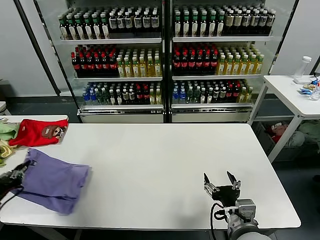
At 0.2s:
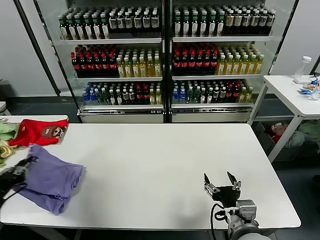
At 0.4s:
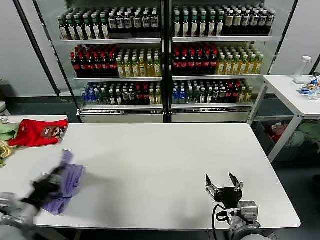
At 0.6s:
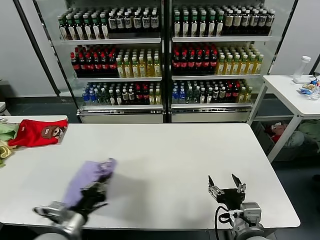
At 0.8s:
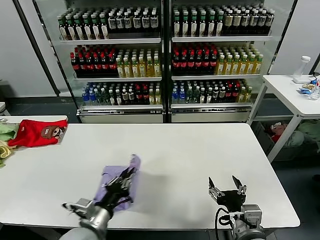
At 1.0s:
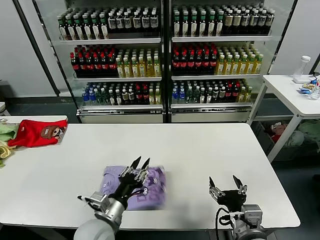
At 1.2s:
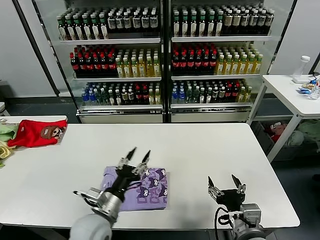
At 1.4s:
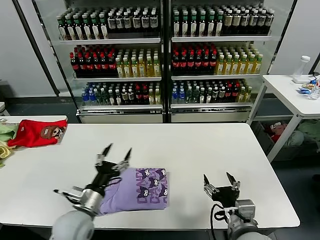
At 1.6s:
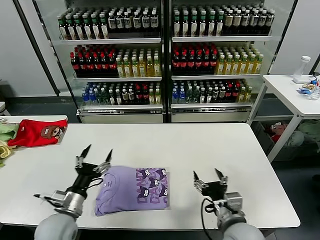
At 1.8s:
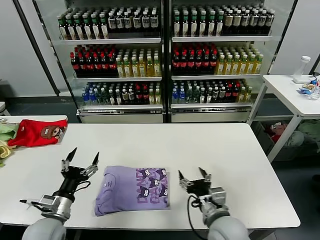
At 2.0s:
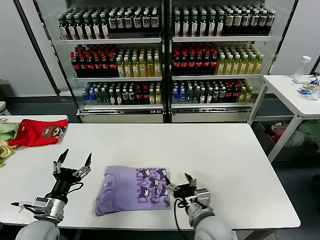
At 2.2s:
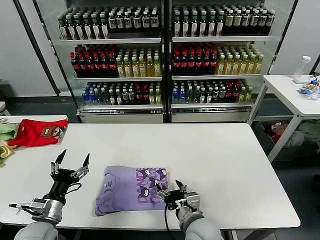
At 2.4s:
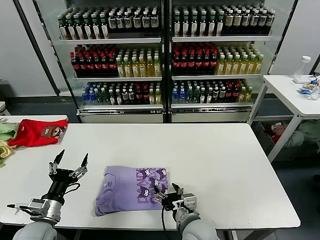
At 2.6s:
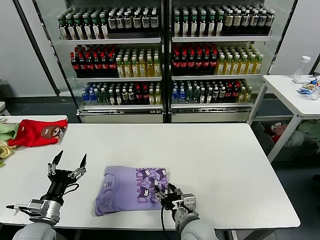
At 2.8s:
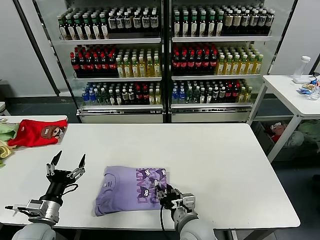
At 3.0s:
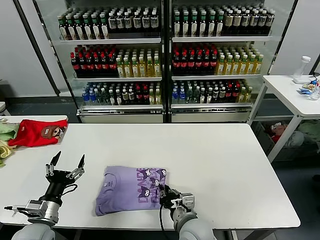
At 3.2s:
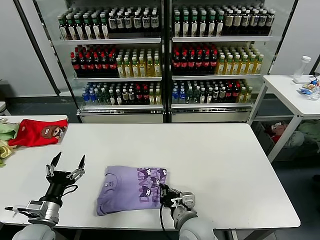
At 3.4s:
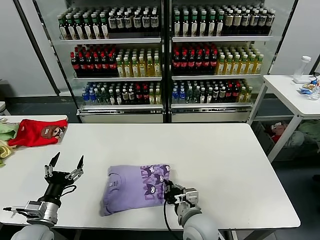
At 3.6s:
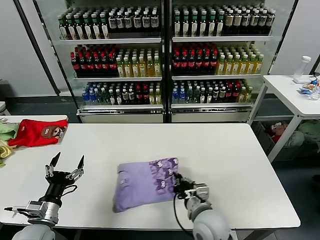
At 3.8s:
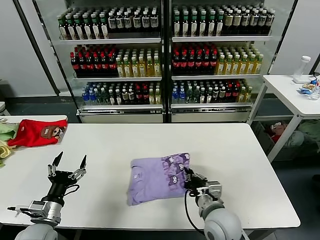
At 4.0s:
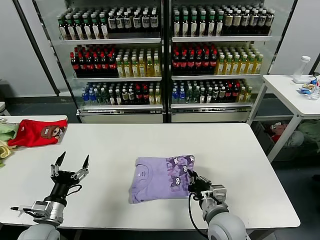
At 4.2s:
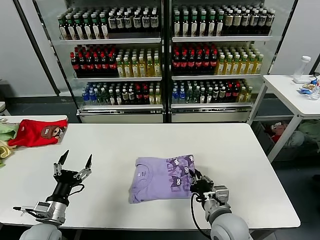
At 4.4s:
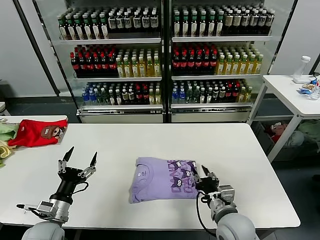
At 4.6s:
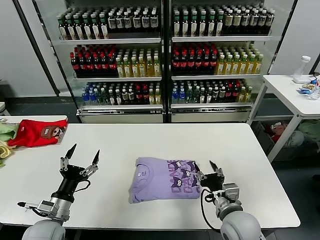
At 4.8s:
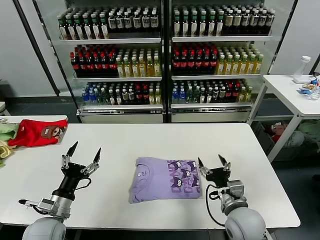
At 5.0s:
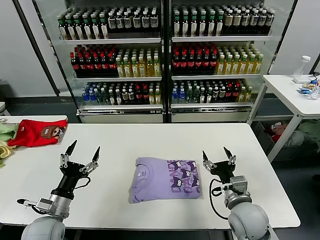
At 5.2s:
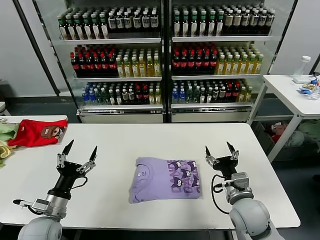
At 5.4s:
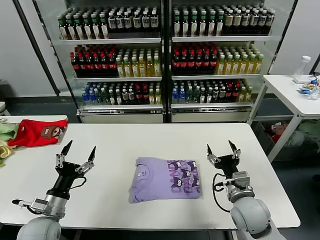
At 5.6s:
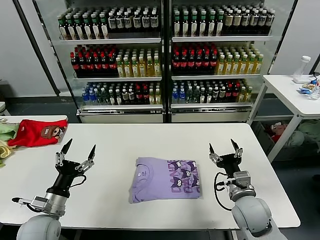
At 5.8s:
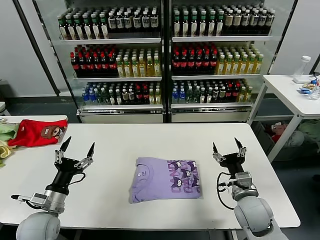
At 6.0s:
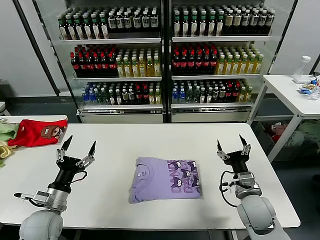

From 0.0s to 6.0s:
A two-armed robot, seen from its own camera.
Task of the whole recording: fold and organize the clothes.
Step, from 1.2s to 4.2s: Drag the clothes to the center of the table.
From 0.0s to 1.6s: The left gripper travels to the right and downward by approximately 20 cm, and opens.
From 1.6s to 3.0s: The left gripper heads to the left, covering about 5 cm. The right gripper shifts about 10 cm to the left and downward, and closes.
From 3.0s to 4.4s: The right gripper is displaced to the right by some 10 cm.
From 4.4s to 6.0s: The right gripper moves to the right and forward, approximately 10 cm, and opens up.

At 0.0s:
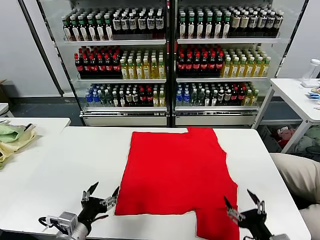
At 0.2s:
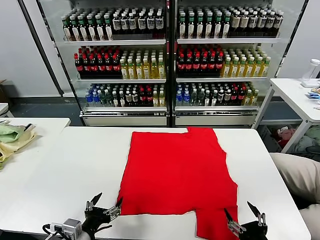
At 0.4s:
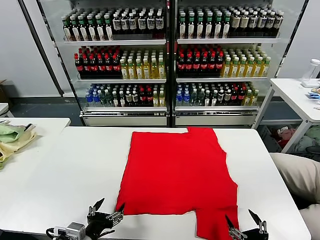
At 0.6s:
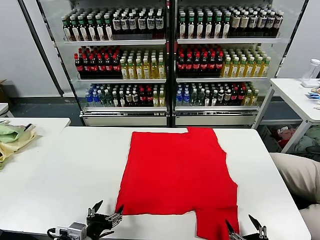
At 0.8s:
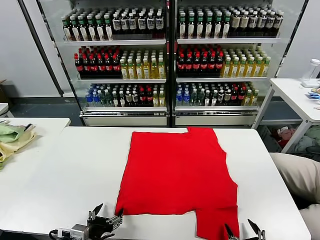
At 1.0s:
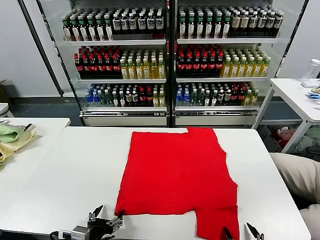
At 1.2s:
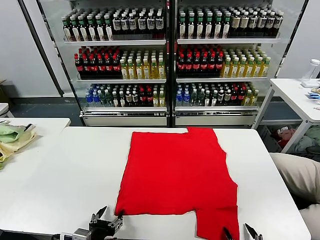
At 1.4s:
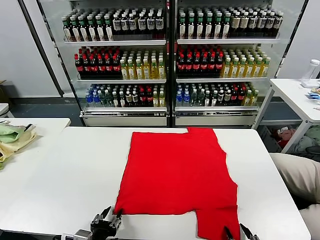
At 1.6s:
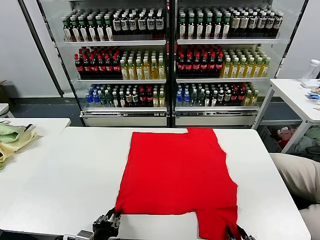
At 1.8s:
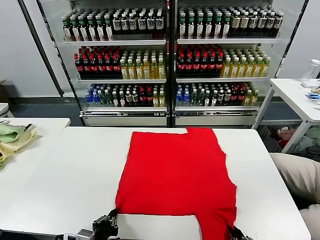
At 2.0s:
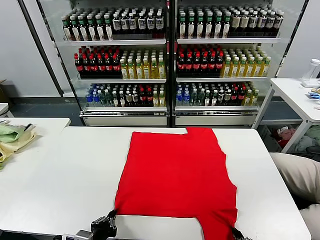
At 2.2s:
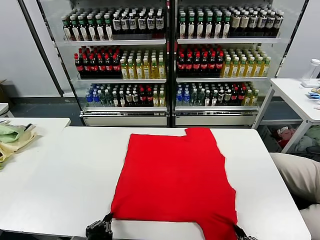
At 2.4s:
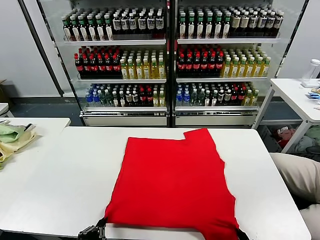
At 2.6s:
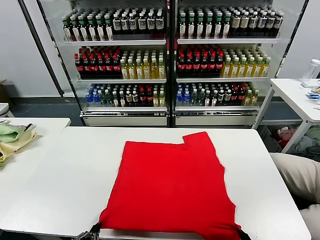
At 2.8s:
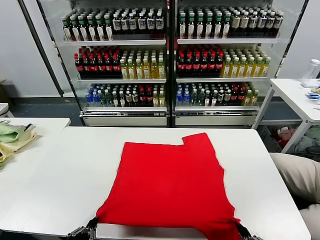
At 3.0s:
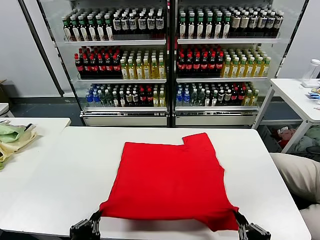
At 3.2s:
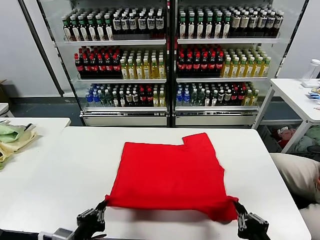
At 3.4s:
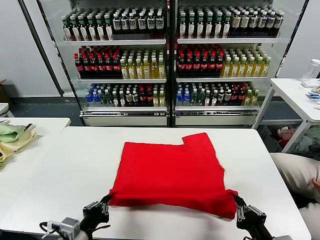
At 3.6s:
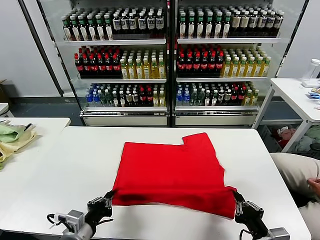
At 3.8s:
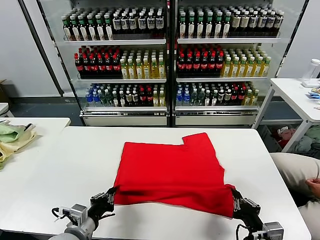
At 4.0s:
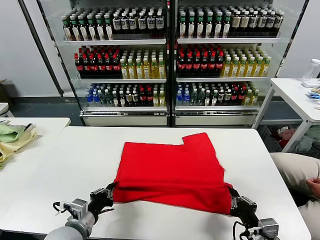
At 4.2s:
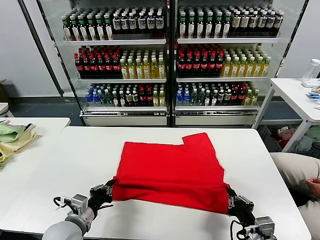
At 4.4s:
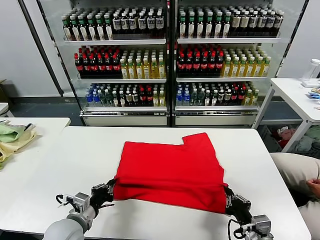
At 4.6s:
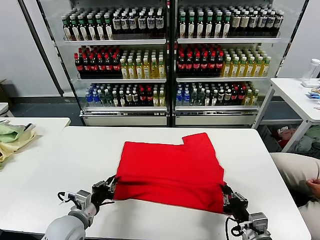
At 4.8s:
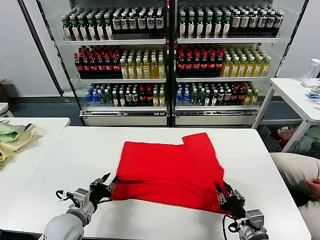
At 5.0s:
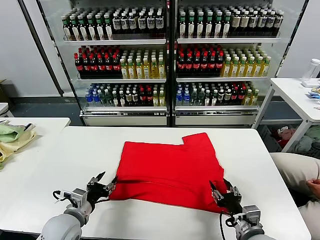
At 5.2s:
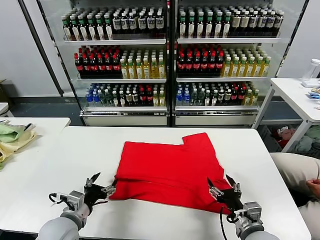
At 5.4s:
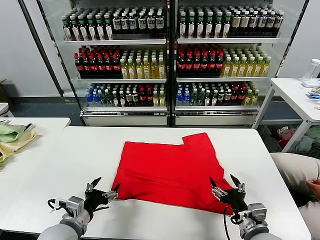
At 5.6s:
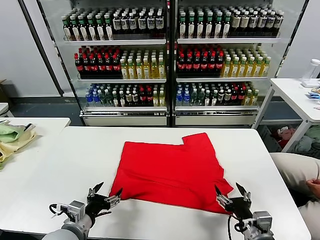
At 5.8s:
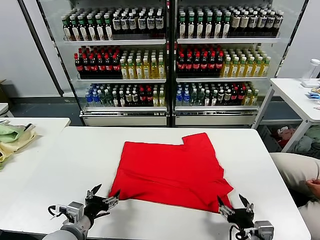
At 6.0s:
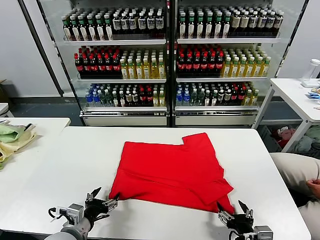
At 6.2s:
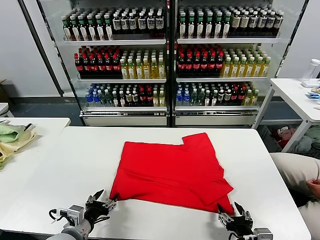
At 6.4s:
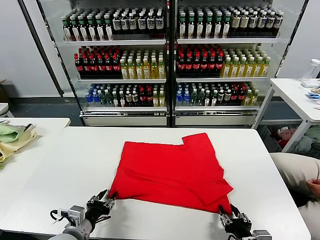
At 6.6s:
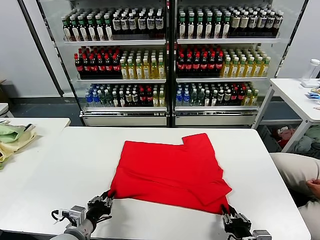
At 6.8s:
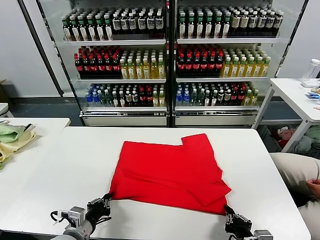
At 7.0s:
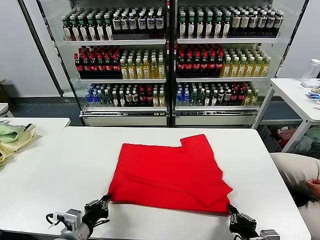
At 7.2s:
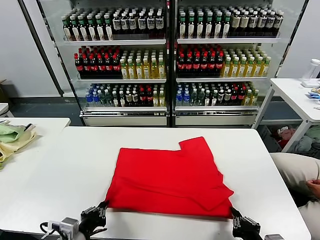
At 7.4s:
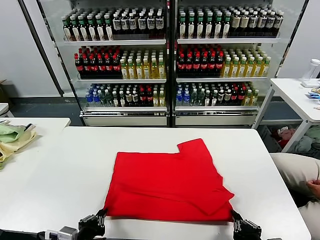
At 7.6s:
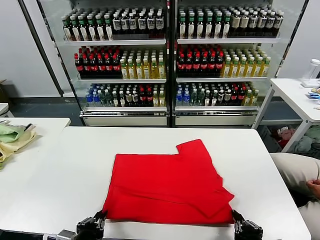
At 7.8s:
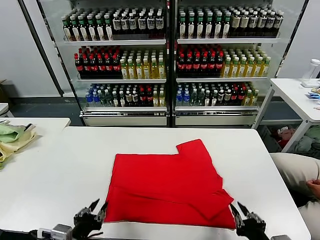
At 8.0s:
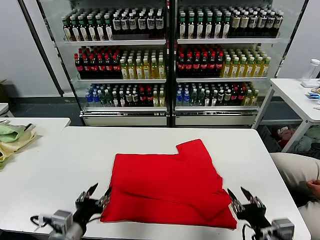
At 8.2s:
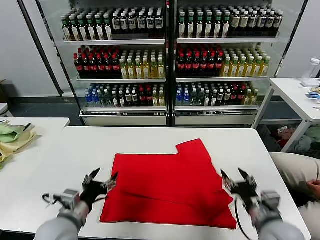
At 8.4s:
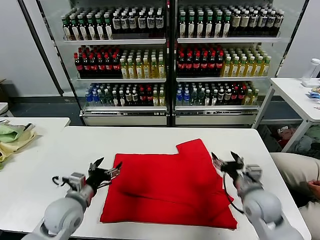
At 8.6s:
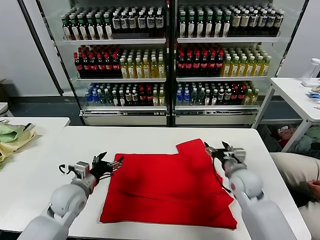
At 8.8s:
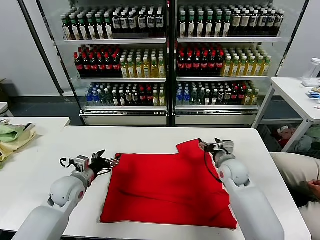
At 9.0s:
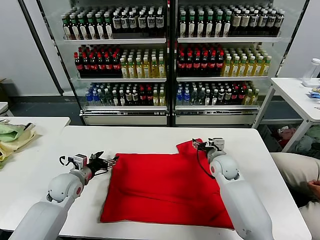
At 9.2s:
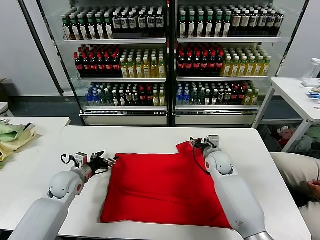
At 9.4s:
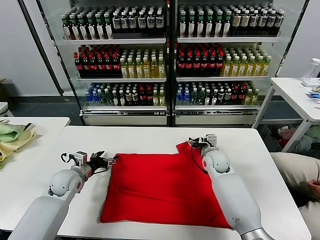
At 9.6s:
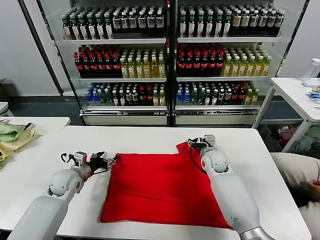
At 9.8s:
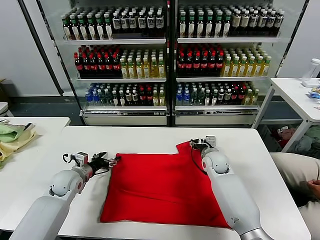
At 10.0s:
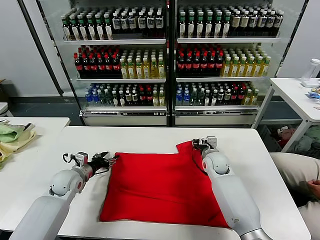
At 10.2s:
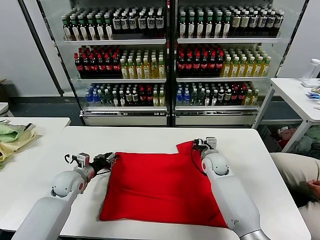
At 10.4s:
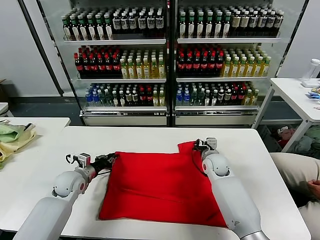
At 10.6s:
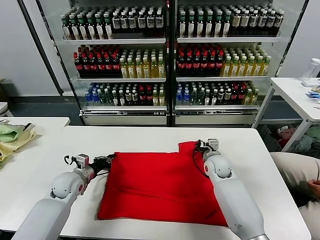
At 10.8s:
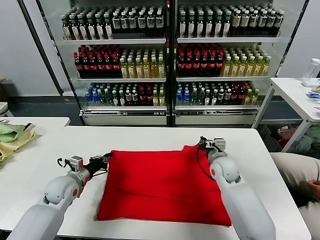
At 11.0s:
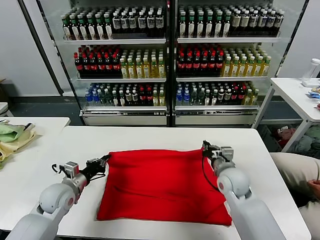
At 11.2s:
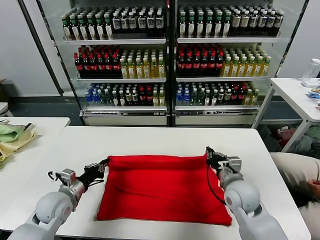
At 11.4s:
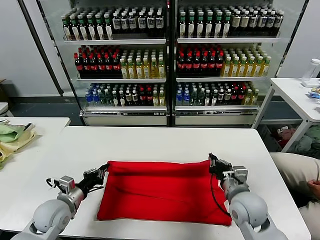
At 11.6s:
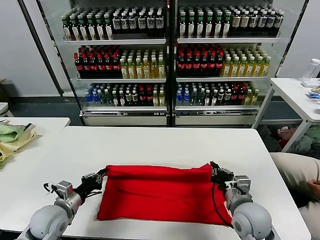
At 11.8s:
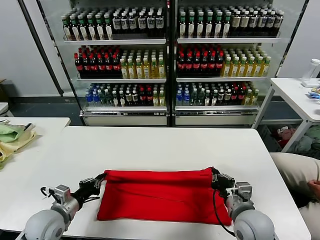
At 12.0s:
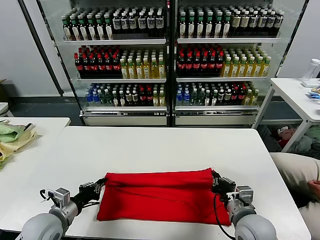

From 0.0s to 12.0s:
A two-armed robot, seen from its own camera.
Task of the whole recording: fold and organize the clothes.
Step, from 0.0s to 1.6s: use both grippers simultaneously to clamp the lower edge of the clothing fabric.
Step, from 1.8s to 4.6s: use both grippers to drag the lower edge of the fabric forward and fold it over the upper edge.
Step, from 5.0s to 7.6s: Drag the clothes downward with both gripper.
Step, from 7.8s to 10.6s: use both grippers simultaneously to clamp the upper edge of the clothing fabric.
From 1.6s to 3.0s: The two grippers go approximately 5 cm upward.
From 3.0s to 4.4s: The grippers both shift forward and downward by some 15 cm.
From 4.4s to 6.0s: The right gripper opens up; the left gripper opens its fingers.
From 6.0s to 7.6s: The left gripper heads backward, covering roughly 10 cm, and closes; the right gripper shifts by approximately 5 cm, and closes up.
From 7.6s to 9.0s: Both grippers travel together forward, roughly 30 cm. The left gripper opens. Meanwhile the right gripper opens its fingers.
From 9.0s to 10.4s: The left gripper closes its fingers. Meanwhile the right gripper closes.
From 10.4s to 12.0s: The right gripper travels backward by some 25 cm. Meanwhile the left gripper travels backward by about 15 cm.

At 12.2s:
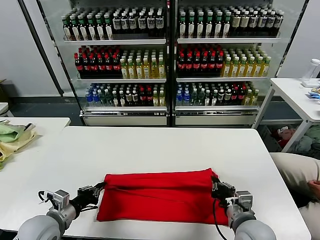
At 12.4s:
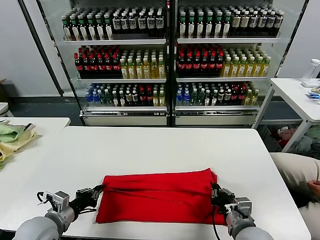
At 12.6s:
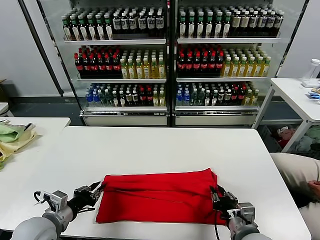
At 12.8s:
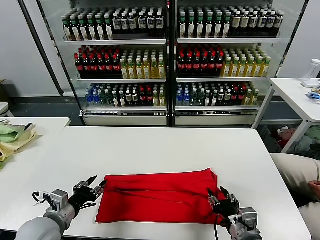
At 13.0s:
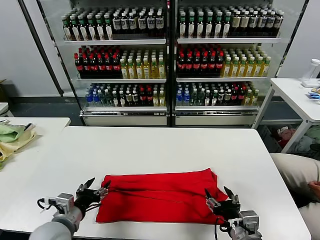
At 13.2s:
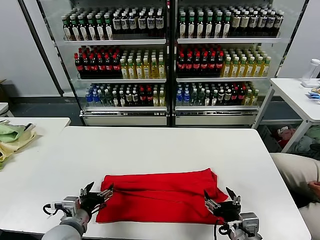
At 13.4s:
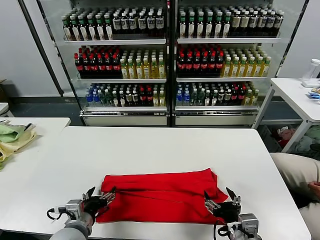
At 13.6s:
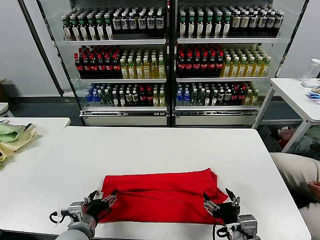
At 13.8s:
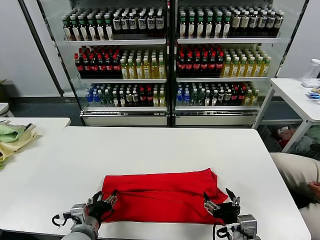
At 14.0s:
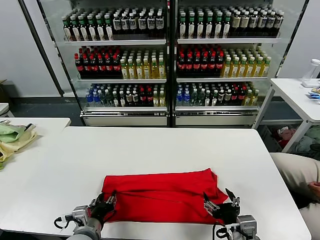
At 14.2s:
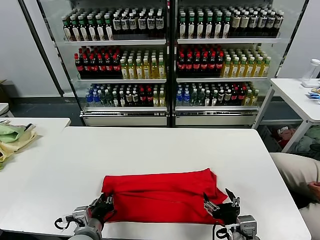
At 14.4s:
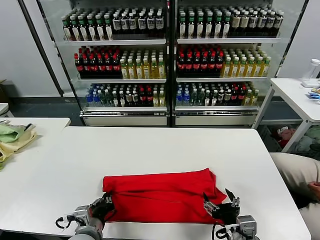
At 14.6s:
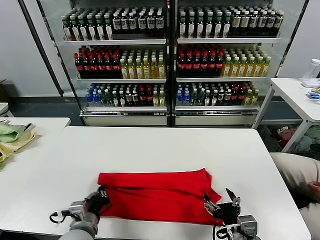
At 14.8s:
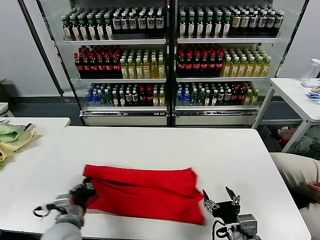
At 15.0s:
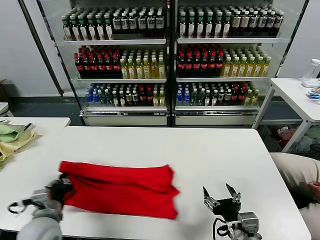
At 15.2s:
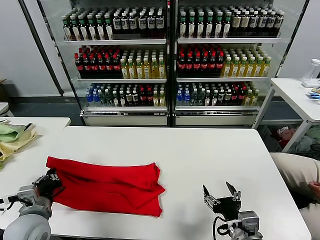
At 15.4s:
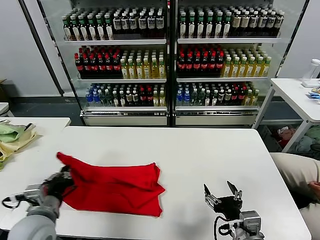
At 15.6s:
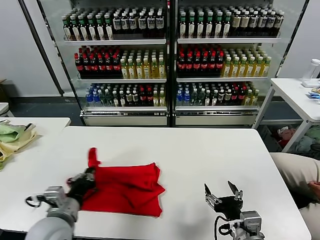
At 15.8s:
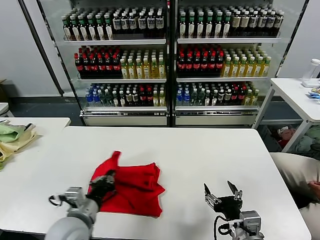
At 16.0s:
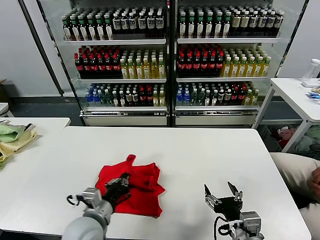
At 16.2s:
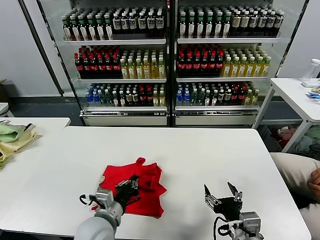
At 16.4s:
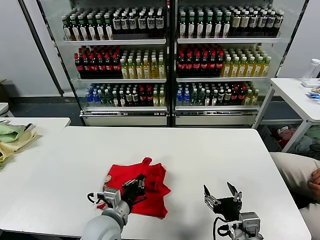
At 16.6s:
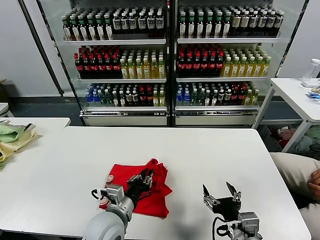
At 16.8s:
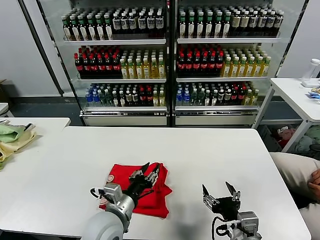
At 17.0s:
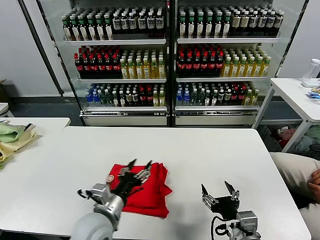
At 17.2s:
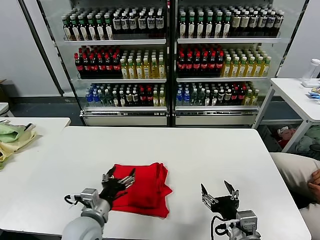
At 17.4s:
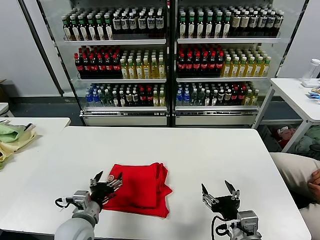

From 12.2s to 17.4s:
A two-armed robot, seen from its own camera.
Task of the whole recording: fold and organize the clothes.
Step, from 12.8s to 14.2s: use the left gripper to clamp the left edge of the fabric.
Step, from 14.4s to 16.6s: use the left gripper to drag the left edge of the fabric to the left and folds it over the right edge.
From 12.2s to 14.0s: The right gripper shifts some 5 cm backward, and opens. Meanwhile the left gripper shifts some 10 cm to the right, and opens.
From 14.0s to 15.6s: The left gripper heads upward and to the left, covering roughly 10 cm, and closes.
From 15.6s to 17.4s: The left gripper is displaced downward by some 5 cm, moves roughly 15 cm to the right and comes back, and opens up.
